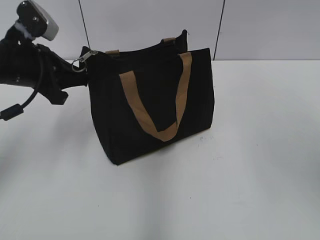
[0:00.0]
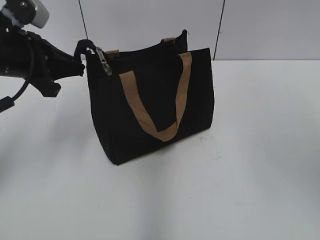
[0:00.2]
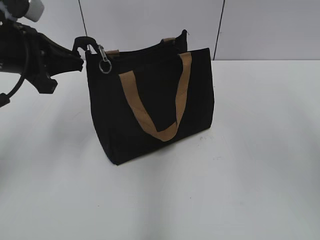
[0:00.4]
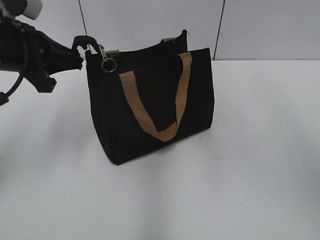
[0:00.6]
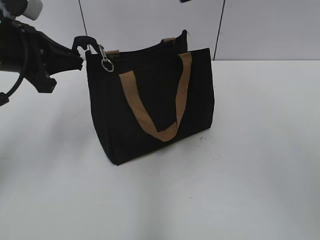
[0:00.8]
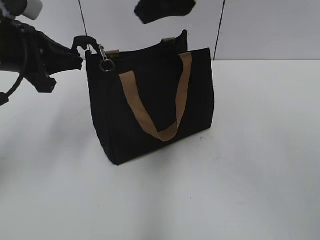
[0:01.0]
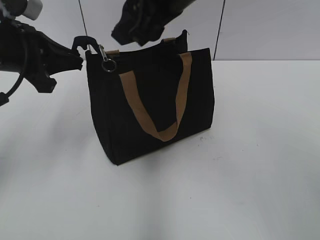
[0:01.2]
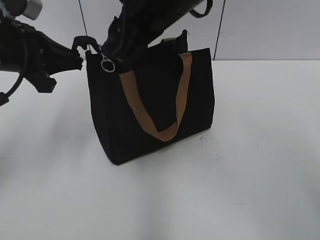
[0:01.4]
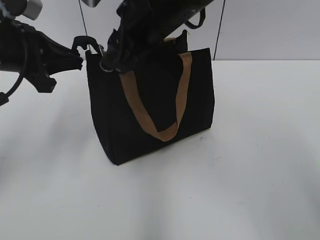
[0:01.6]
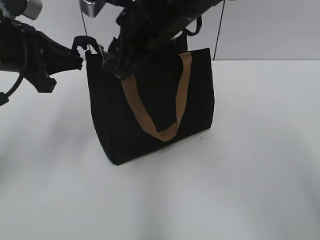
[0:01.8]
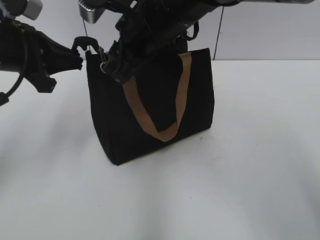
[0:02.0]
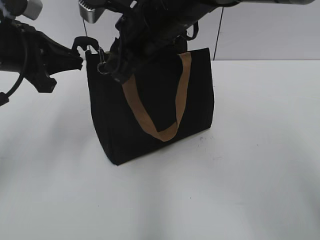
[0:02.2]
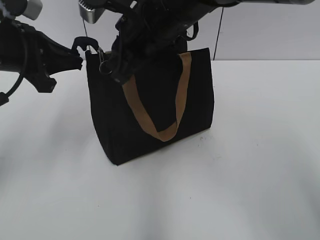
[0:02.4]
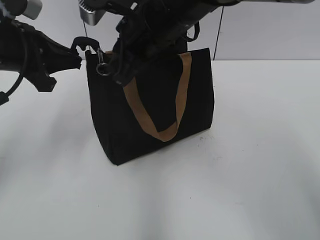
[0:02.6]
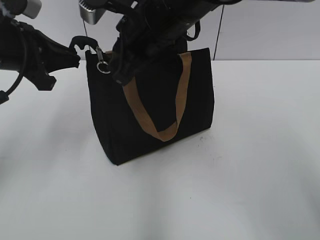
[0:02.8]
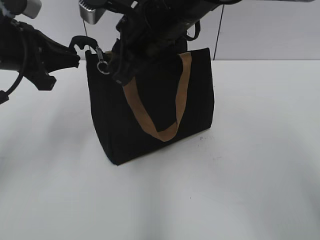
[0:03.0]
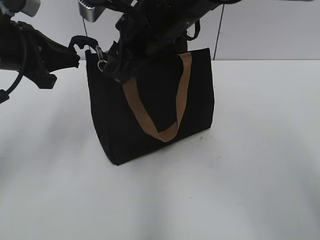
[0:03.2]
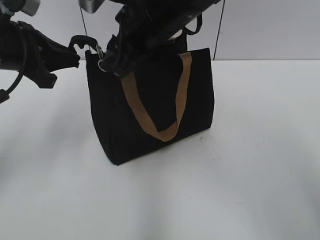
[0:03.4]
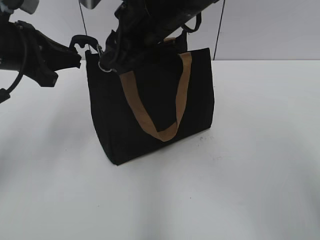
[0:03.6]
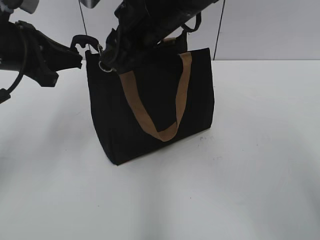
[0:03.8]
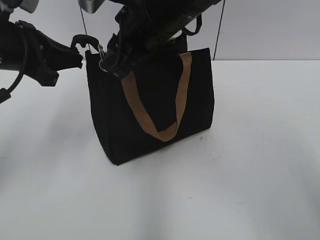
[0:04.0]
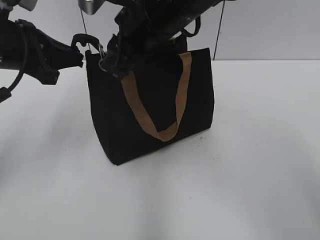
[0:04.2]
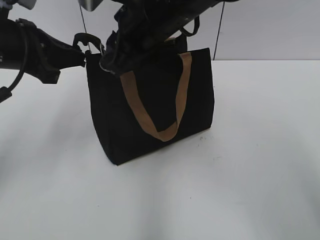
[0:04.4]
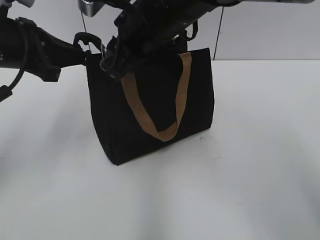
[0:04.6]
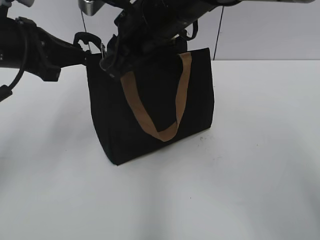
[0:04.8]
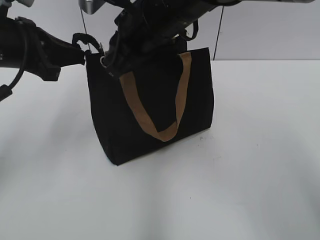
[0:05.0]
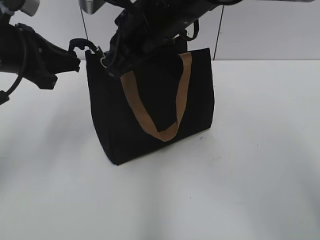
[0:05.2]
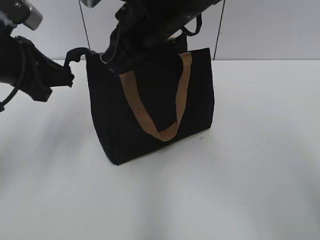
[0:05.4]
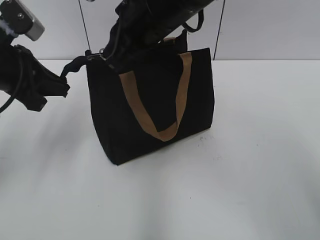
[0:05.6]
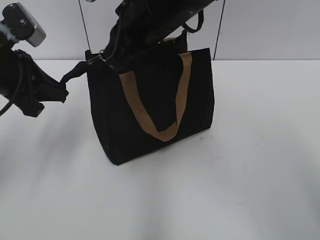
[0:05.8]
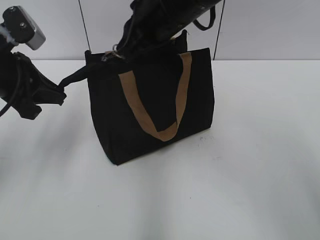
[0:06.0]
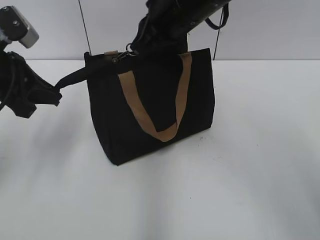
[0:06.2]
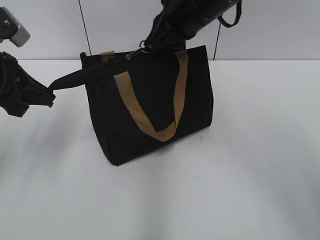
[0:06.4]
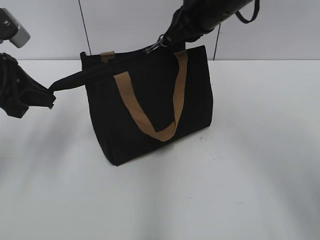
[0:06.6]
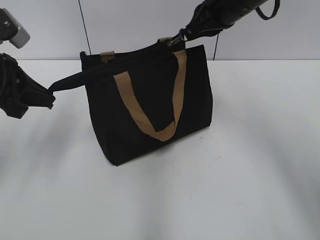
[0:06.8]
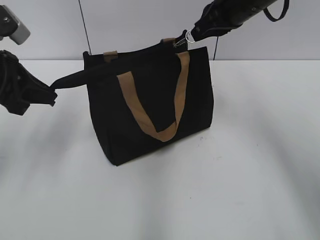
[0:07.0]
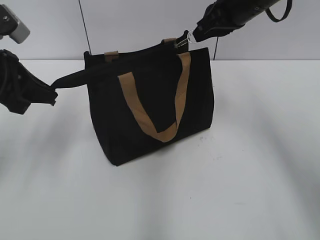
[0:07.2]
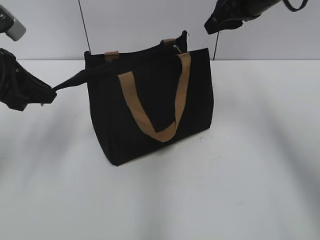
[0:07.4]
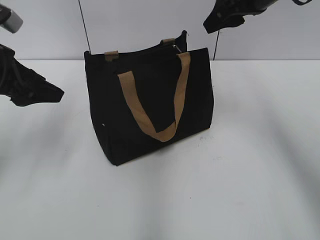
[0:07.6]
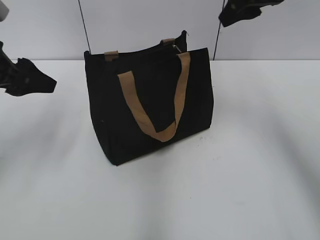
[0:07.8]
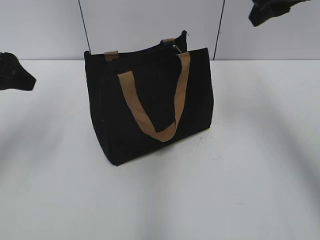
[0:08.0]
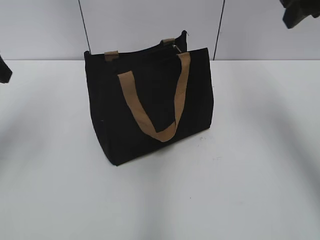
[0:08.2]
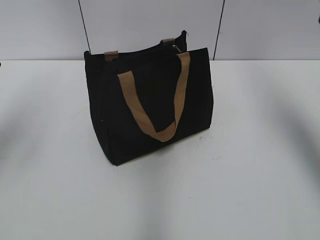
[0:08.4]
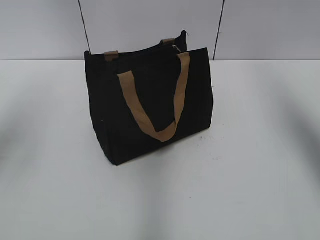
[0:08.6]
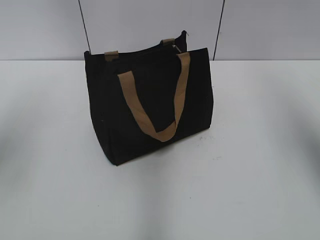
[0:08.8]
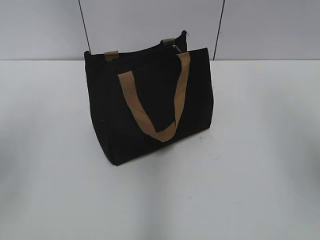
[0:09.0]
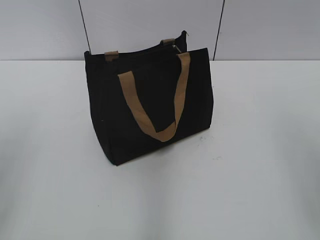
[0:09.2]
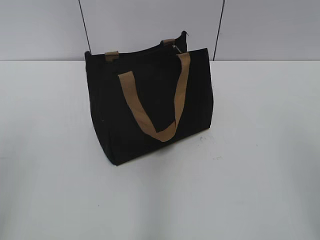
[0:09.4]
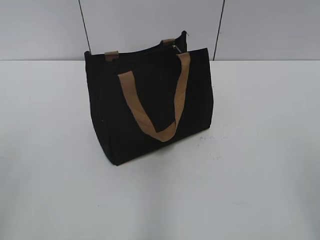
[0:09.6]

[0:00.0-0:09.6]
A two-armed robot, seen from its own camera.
Step, 0:00.0 to 0:07.2: Zip up the bag with your right hand.
0:00.0 to 0:01.6: The right gripper shifts about 30 cm to the left, forward and downward.
0:01.6 to 0:03.2: The right gripper closes, then opens again.
0:03.2 to 0:04.8: The grippers stay close to where they were, moving slightly.
0:04.8 to 0:06.4: The right gripper shifts some 5 cm to the right, and closes up.
0:06.4 to 0:08.0: The right gripper is displaced to the right and upward by roughly 15 cm, and opens its fingers. The left gripper opens.
0:08.0 to 0:09.6: Both grippers move backward, roughly 25 cm.

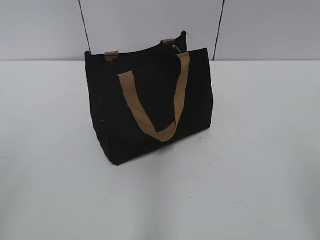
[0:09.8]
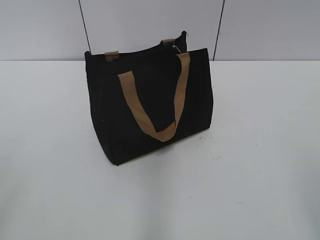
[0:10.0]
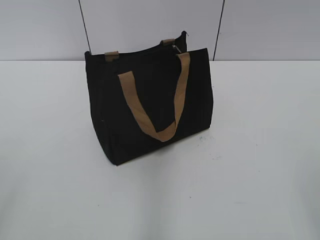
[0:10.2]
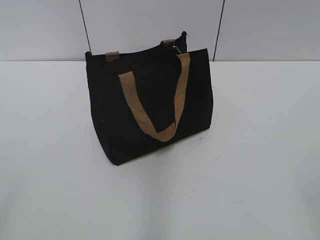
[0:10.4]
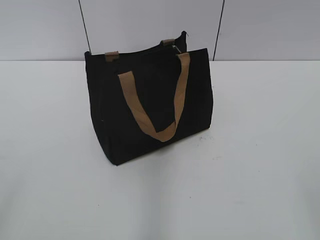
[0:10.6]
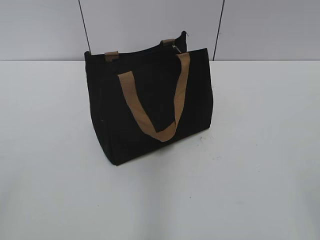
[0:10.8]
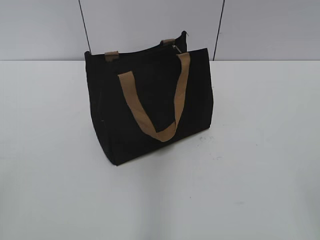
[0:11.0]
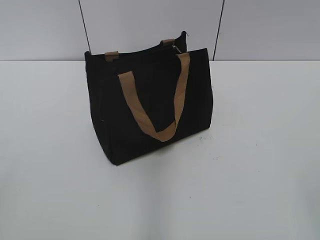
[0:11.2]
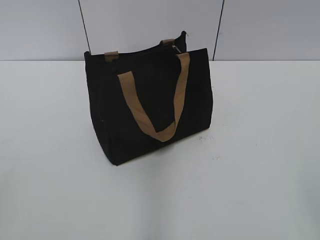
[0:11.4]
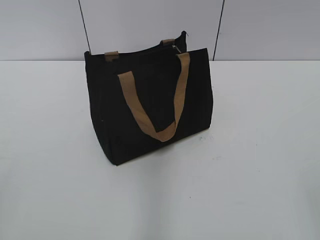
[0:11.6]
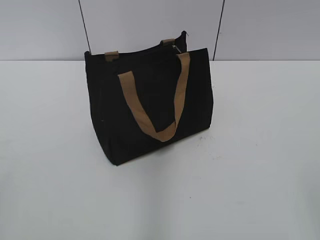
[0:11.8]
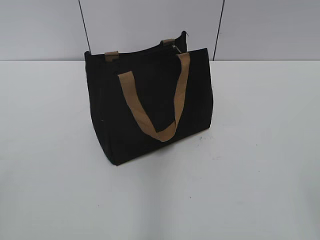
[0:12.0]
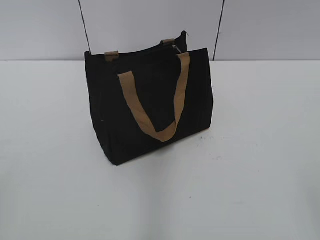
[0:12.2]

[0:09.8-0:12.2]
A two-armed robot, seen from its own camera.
0:11.0 to 0:12.2: The two grippers keep their place.

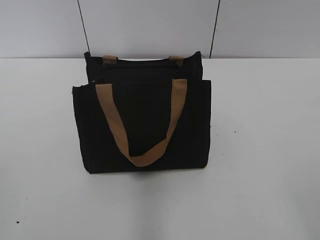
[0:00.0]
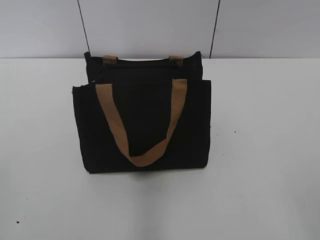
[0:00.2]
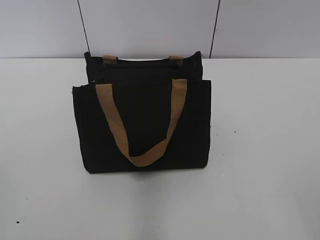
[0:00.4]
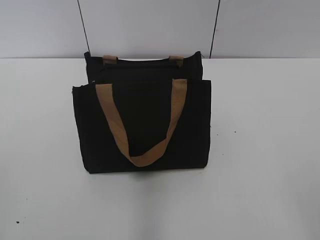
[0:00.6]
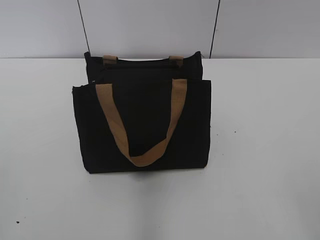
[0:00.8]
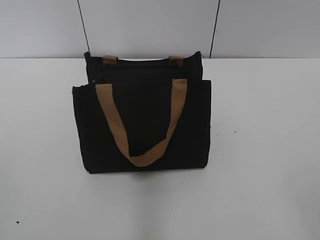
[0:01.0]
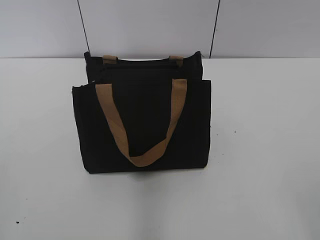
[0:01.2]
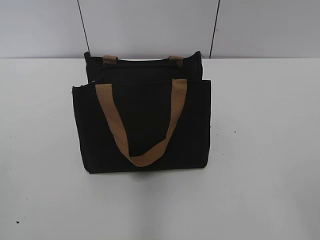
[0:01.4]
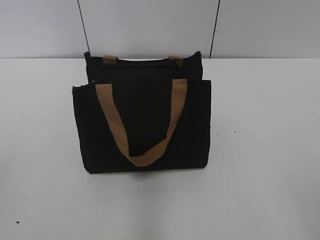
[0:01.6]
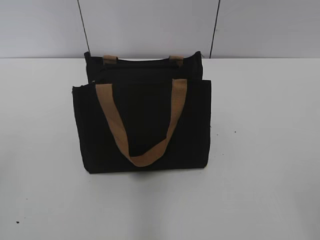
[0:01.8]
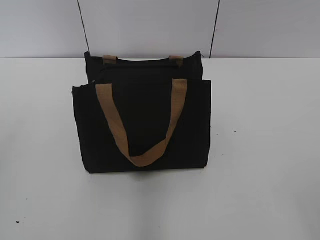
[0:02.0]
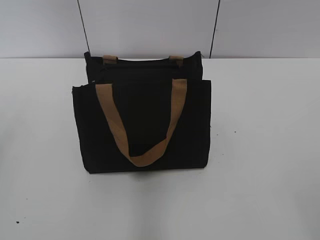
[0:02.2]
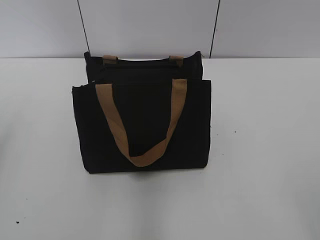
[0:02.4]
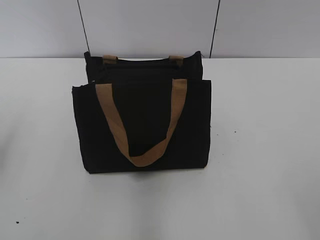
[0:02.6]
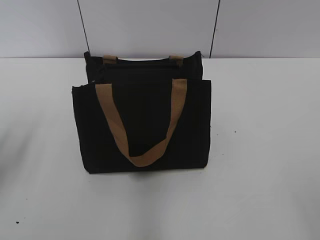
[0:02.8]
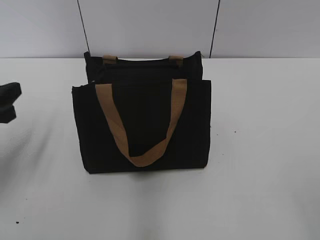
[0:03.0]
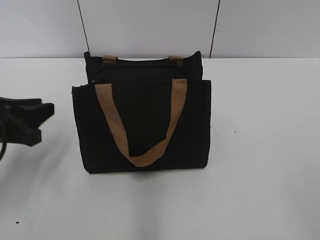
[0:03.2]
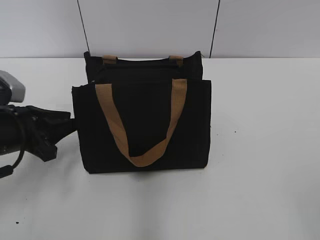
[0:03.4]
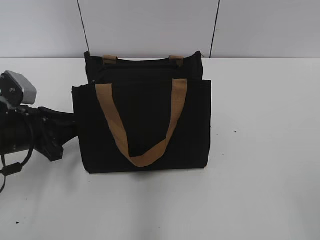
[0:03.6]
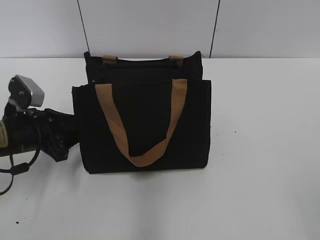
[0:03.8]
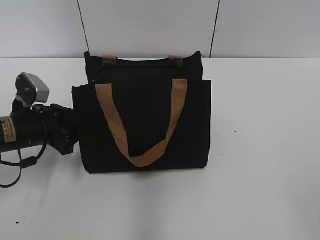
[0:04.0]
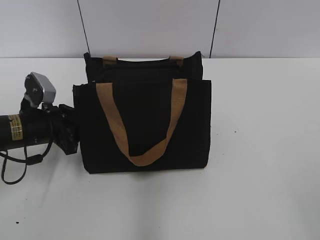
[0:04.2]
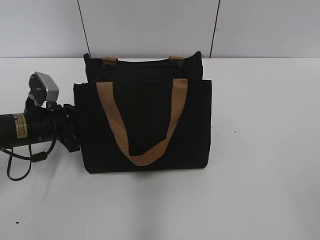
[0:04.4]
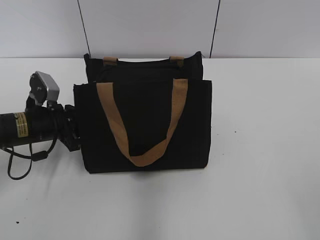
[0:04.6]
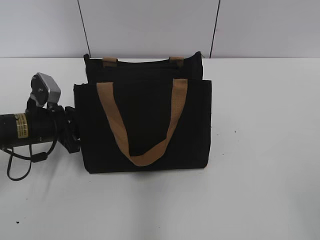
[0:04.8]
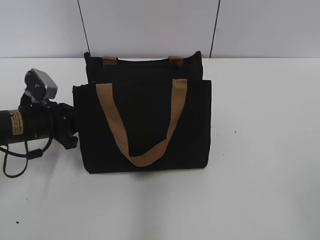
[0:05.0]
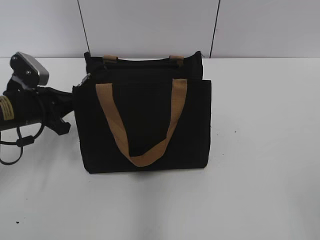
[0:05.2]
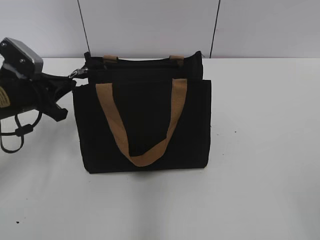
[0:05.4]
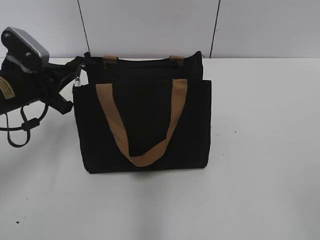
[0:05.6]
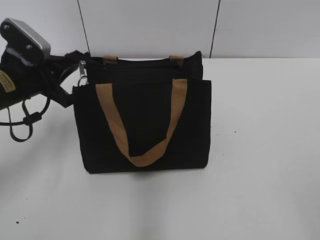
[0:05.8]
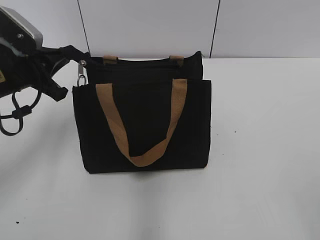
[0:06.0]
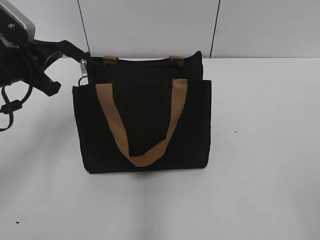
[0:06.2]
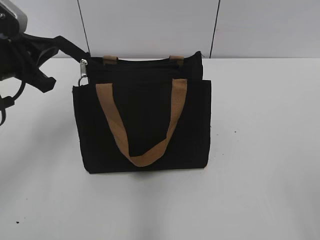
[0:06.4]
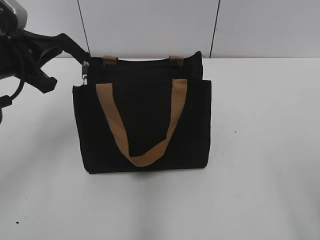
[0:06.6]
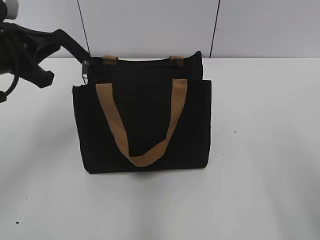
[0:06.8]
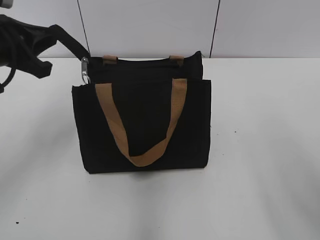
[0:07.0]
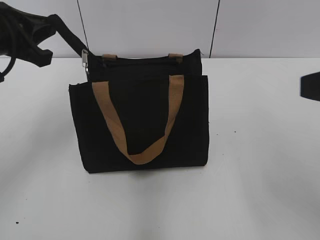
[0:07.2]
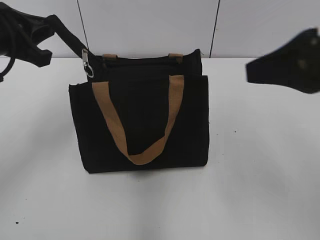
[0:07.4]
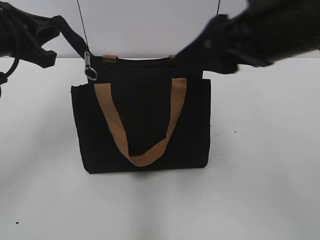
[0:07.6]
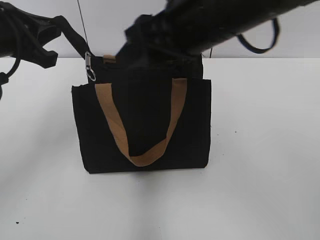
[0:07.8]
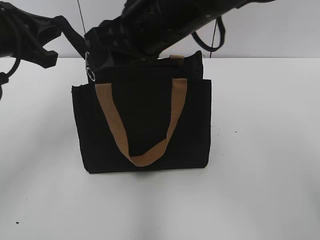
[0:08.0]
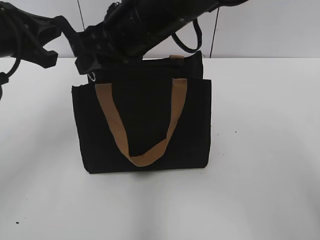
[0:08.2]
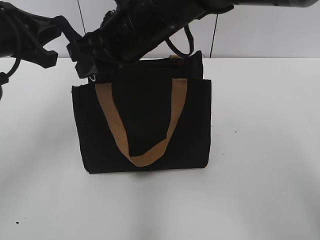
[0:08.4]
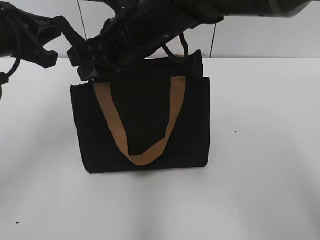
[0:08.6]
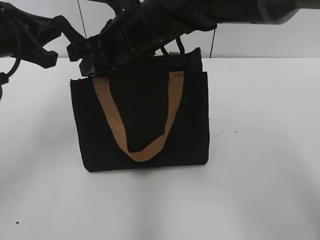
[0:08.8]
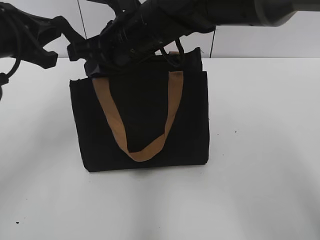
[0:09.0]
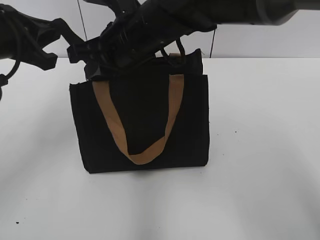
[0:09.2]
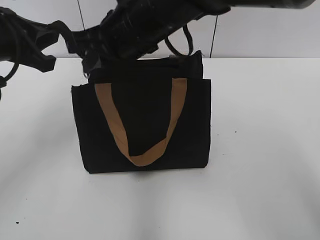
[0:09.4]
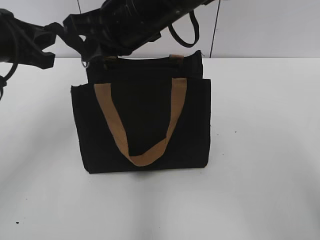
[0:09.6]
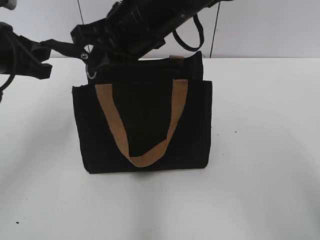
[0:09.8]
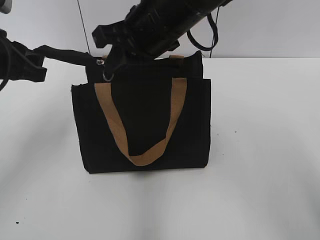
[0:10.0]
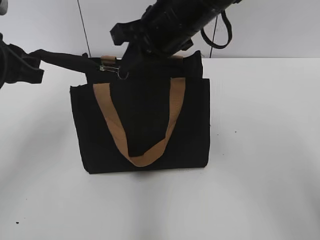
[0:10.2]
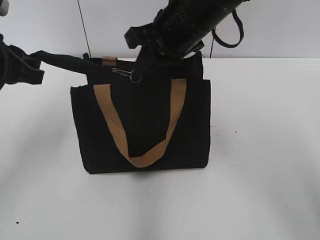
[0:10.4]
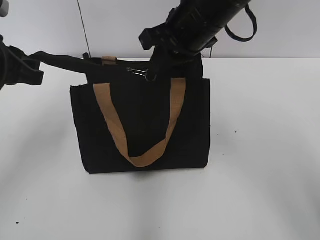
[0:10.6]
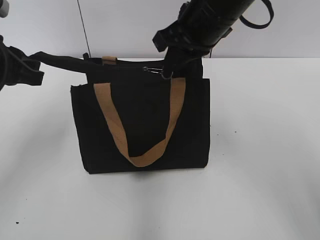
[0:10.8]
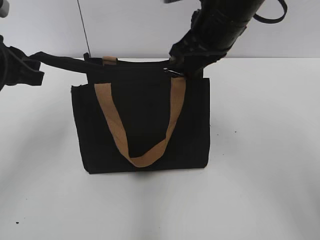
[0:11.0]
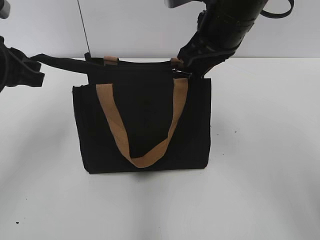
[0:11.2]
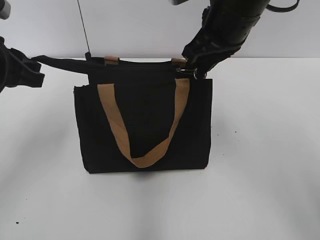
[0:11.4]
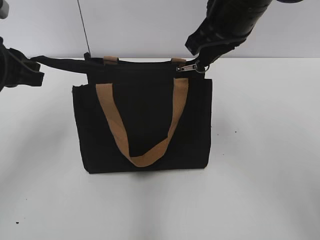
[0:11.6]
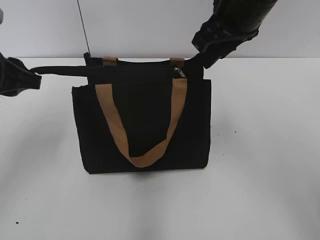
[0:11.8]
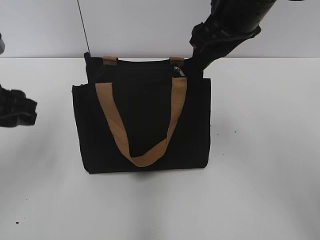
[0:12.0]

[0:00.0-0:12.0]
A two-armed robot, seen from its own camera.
Step, 0:00.0 to 0:11.6: Zip up the bag with your right hand.
0:01.6 to 0:03.0: The left gripper heads forward and downward, covering approximately 25 cm.
0:03.0 to 0:04.4: The left gripper is displaced downward, forward and to the right by some 15 cm.
0:04.4 to 0:06.0: The left gripper travels upward by about 10 cm.
0:06.0 to 0:07.6: The right gripper travels forward and to the left by about 30 cm, while the left gripper travels upward by approximately 5 cm.
0:07.6 to 0:09.0: The right gripper heads to the left, forward and downward, covering roughly 20 cm, and closes.
0:09.0 to 0:10.4: The right gripper travels to the right by about 10 cm.
0:10.4 to 0:12.0: The right gripper travels to the right by some 5 cm, and opens up, while the left gripper opens up.
